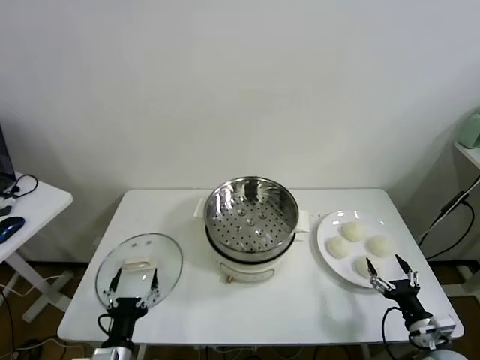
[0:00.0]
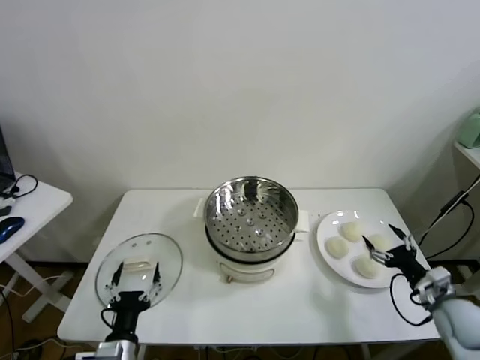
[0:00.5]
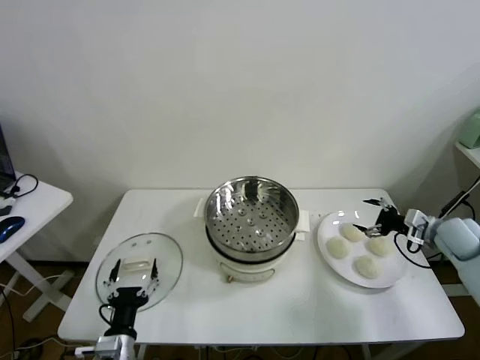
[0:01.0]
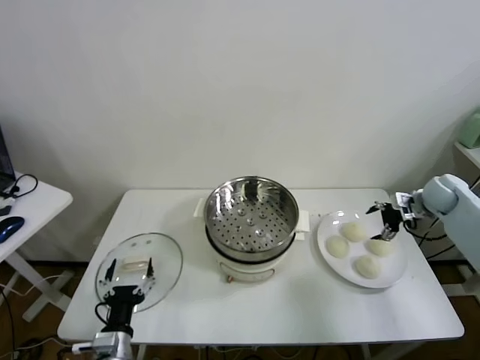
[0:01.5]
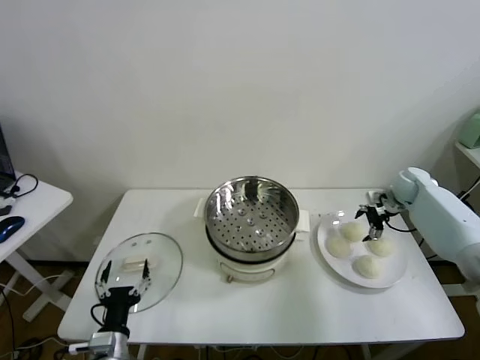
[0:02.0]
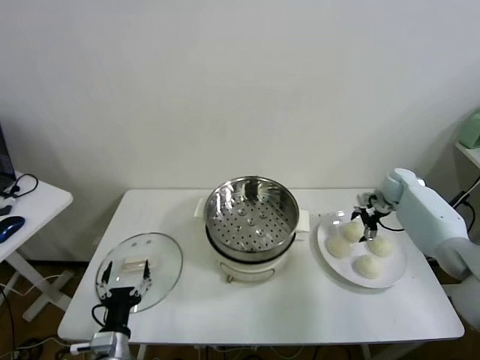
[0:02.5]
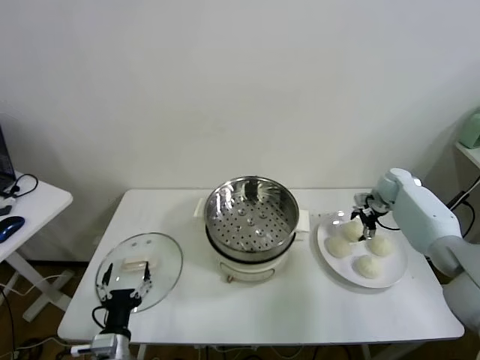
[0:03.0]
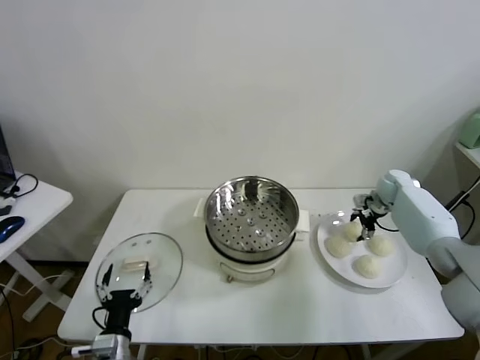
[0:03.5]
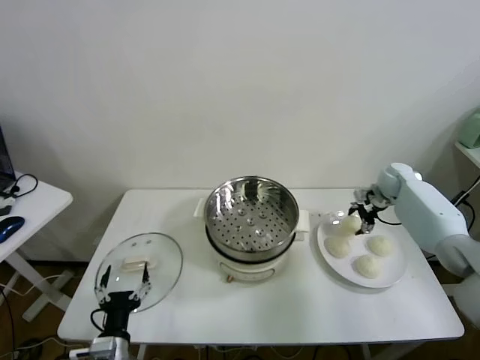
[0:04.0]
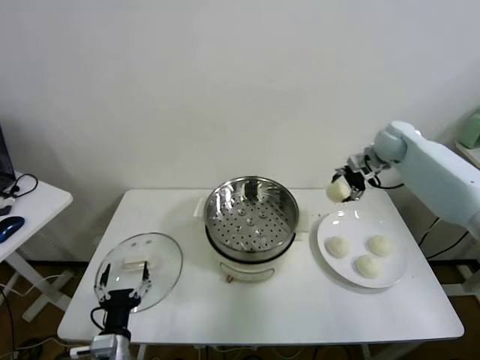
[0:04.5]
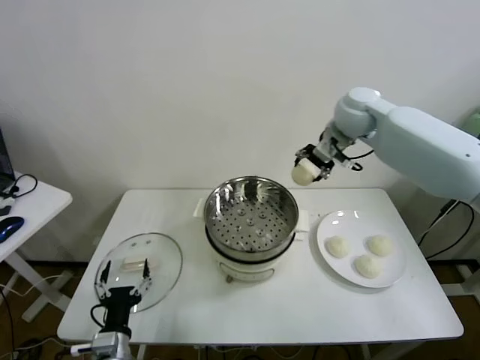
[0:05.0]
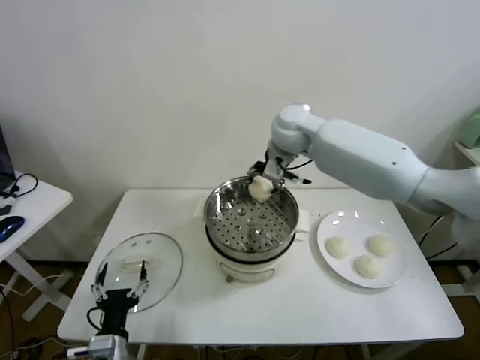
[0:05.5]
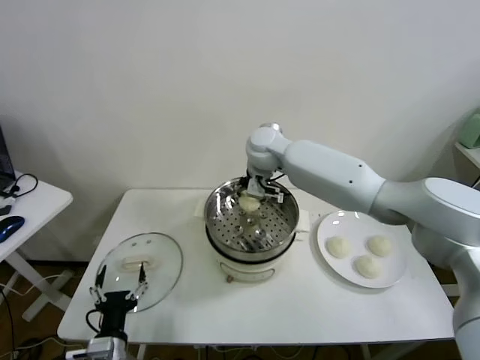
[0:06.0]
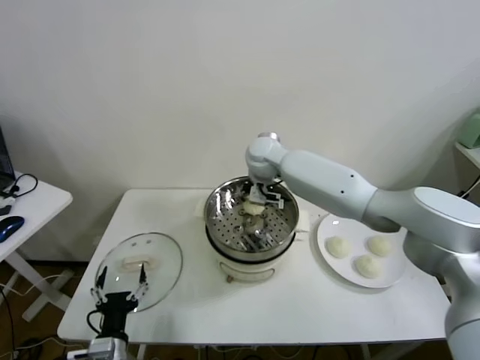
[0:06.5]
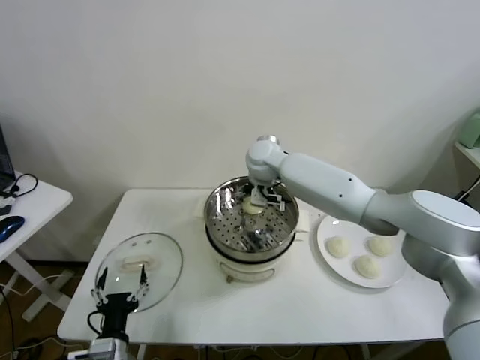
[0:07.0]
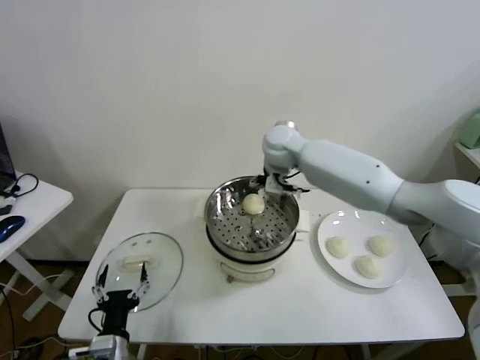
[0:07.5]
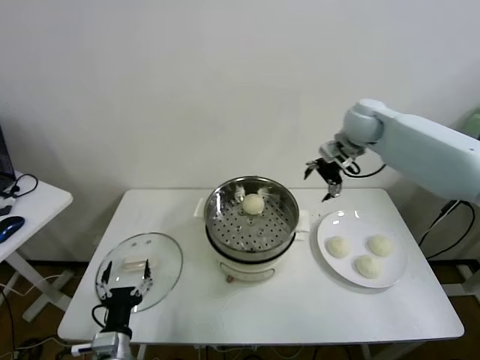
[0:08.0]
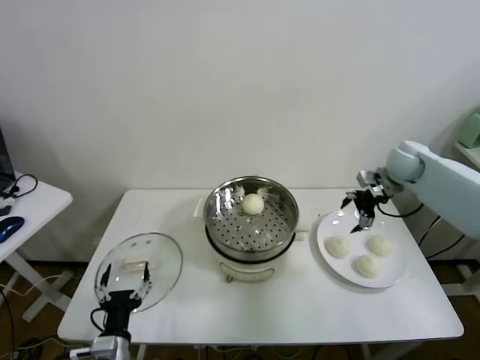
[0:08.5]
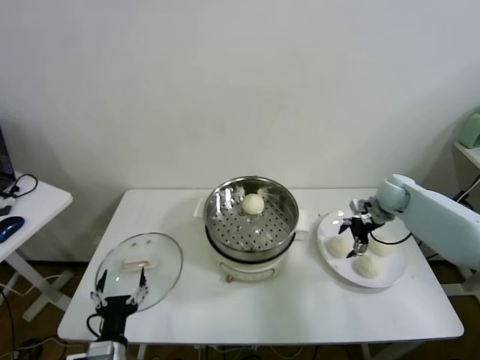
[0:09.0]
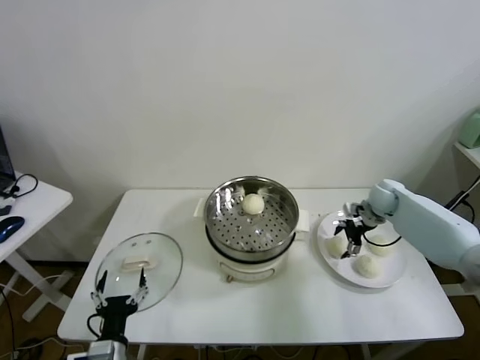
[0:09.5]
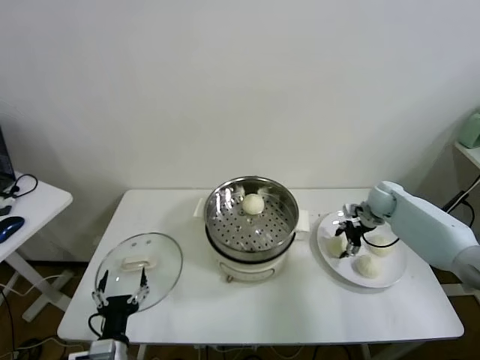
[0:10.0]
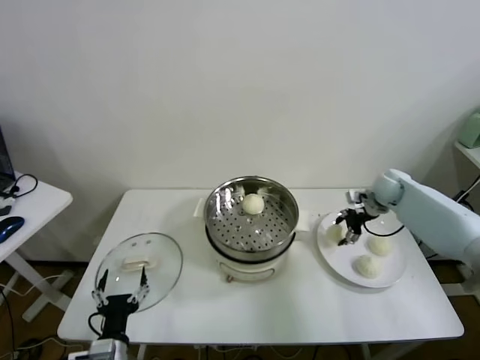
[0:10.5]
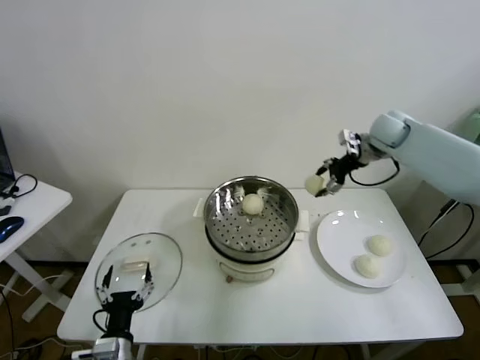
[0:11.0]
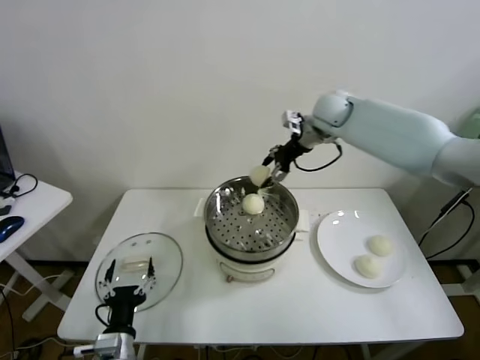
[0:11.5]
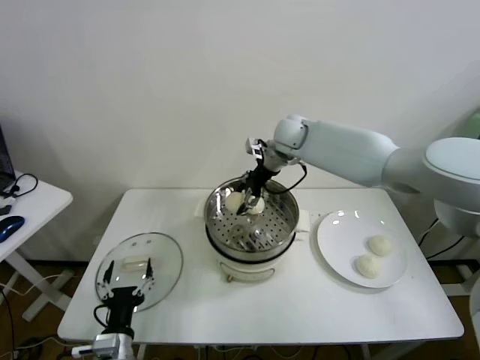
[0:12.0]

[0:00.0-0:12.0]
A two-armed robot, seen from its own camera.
Task of the whole recording: take steamed baozi put them in steamer.
Step, 0:00.0 to 0:03.0: Grasp the baozi in the plate with right gripper.
Step, 0:03.5 to 0:07.0: Place the baozi on the steamer with right gripper.
Step, 0:07.5 to 0:10.0: Grasp the baozi in the plate with right gripper.
0:02.0 to 0:04.0: The right gripper closes up.
0:04.0 to 0:06.0: The right gripper moves to the left, some 35 cm.
0:06.0 to 0:08.0: The right gripper shifts about 25 cm to the right, and opens up.
0:08.0 to 0:10.0: The right gripper shifts roughly 20 cm downward, and closes.
0:10.0 to 0:12.0: The right gripper is displaced to the left and upward by approximately 35 cm.

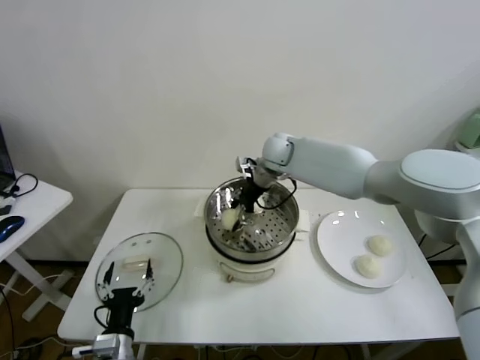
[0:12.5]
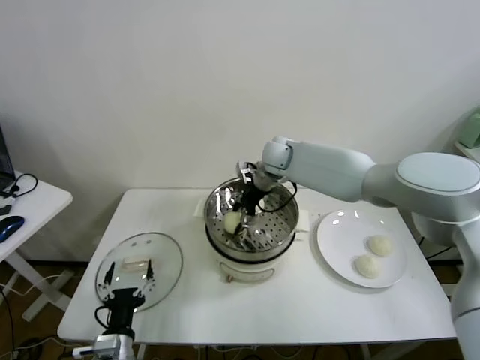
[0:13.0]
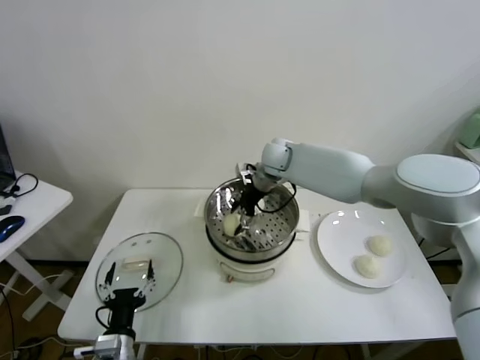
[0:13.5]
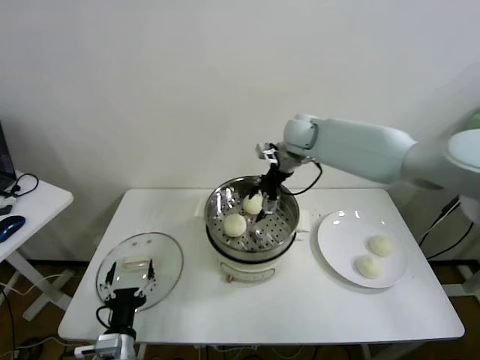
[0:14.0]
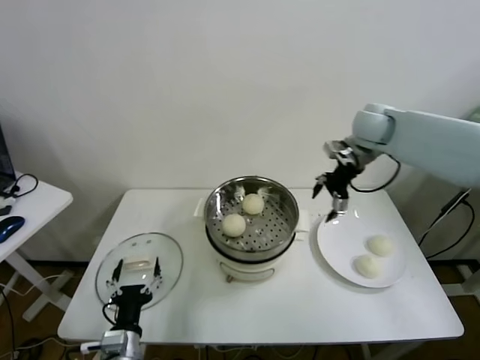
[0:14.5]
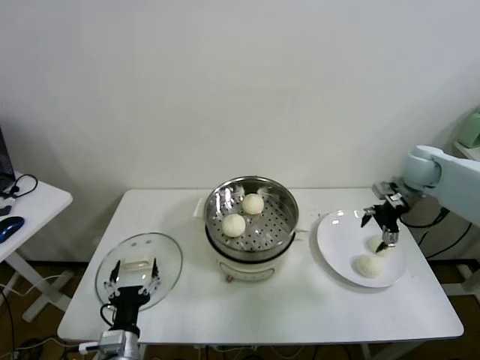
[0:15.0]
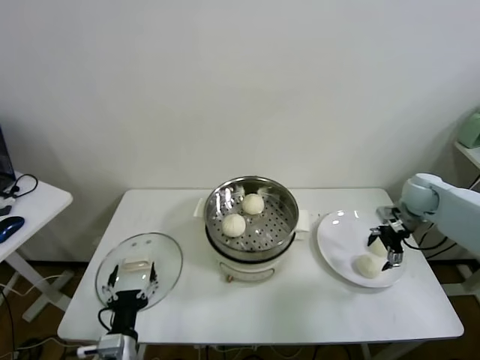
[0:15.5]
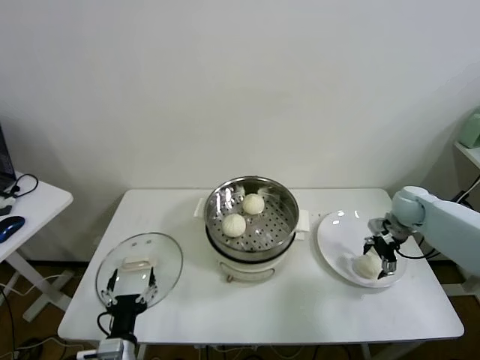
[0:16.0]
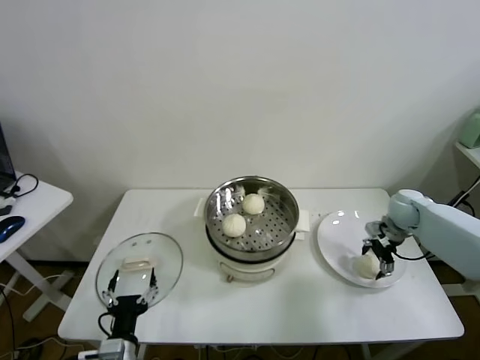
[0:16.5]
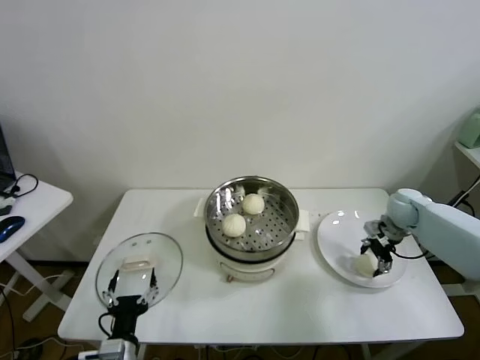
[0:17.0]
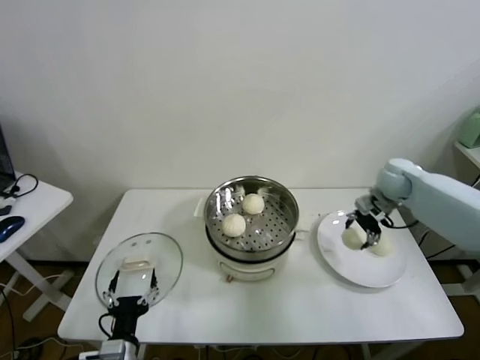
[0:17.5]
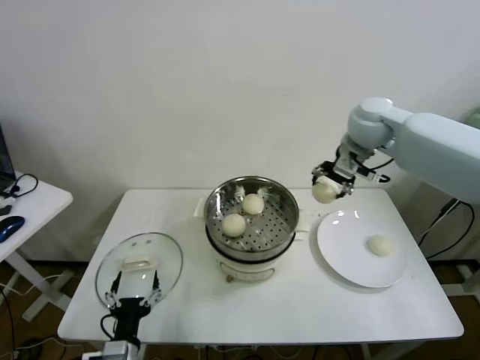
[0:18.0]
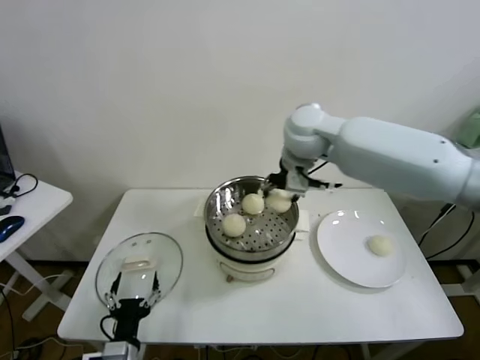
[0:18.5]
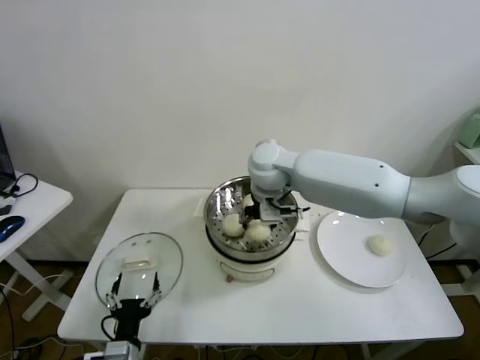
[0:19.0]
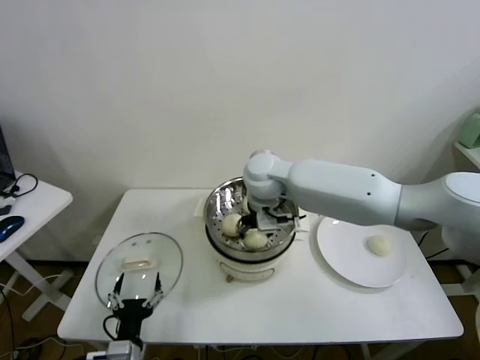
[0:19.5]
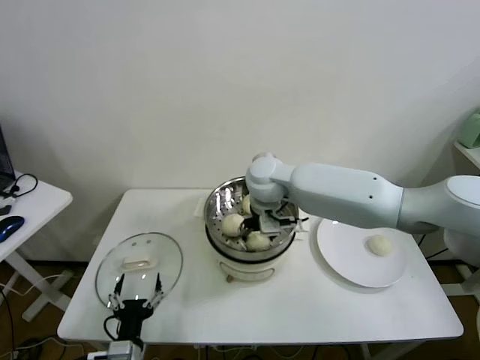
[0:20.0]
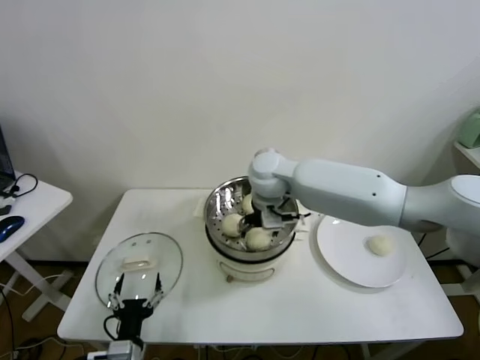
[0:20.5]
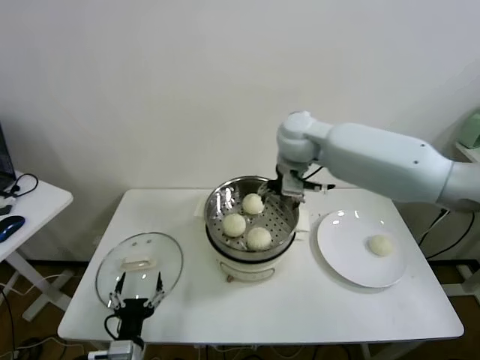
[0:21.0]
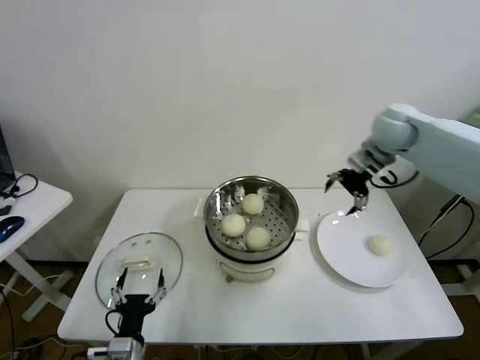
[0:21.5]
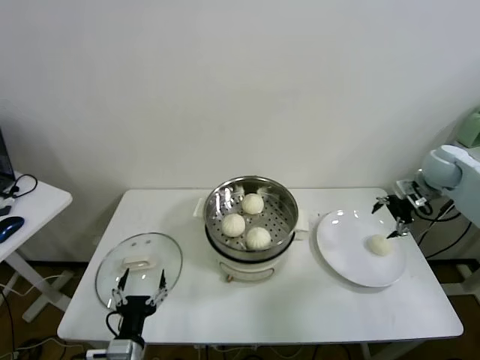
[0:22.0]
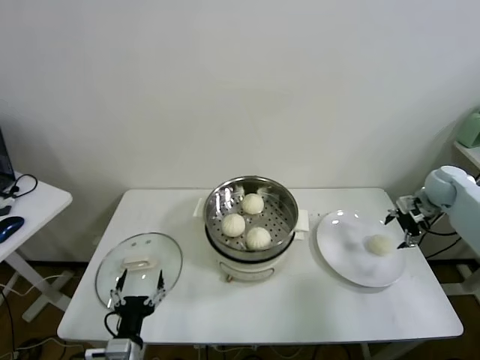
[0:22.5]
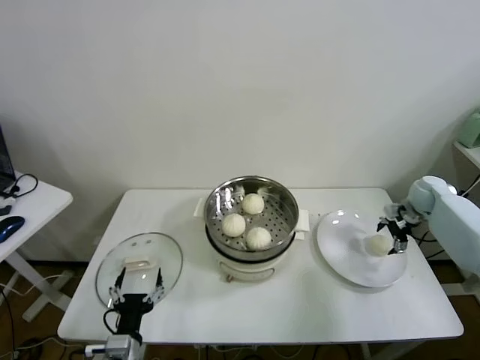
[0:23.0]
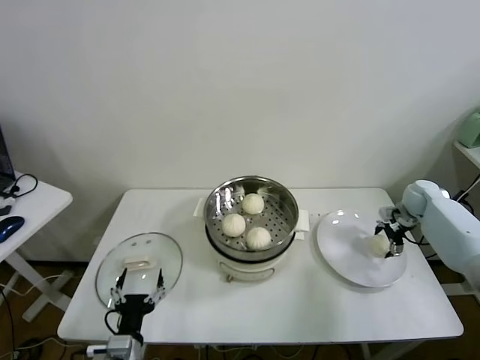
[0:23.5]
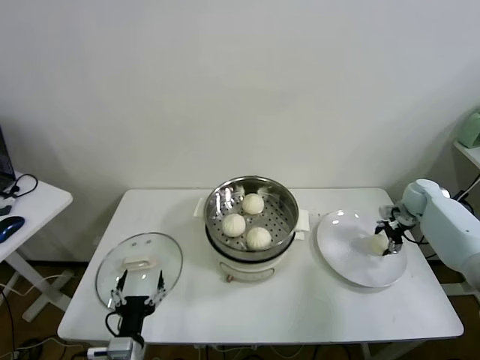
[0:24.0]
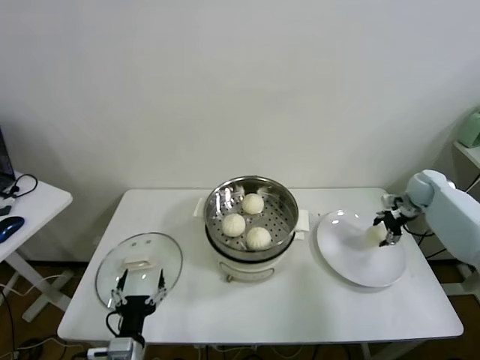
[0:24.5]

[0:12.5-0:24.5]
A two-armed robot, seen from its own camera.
Task of the whole recording: take steamed baozi put them in steamer.
Step, 0:14.0 to 0:16.5: Grasp the baozi in the plate with right gripper.
Step, 0:17.0 to 0:20.5: Place the baozi on the steamer with right gripper.
Step, 0:21.0 to 0:23.5: Grasp the baozi in the plate with right gripper.
0:12.5 to 0:14.5: The right gripper shifts approximately 25 cm to the right and upward, and opens.
0:14.5 to 0:16.5: The right gripper goes roughly 25 cm downward and to the right.
0:16.5 to 0:18.5: The right gripper is displaced to the left and upward by some 40 cm, and closes.
0:18.5 to 0:20.5: The right gripper goes about 10 cm downward and to the left, and opens up.
0:20.5 to 0:22.5: The right gripper moves to the right, roughly 50 cm.
0:22.5 to 0:24.5: The right gripper closes.

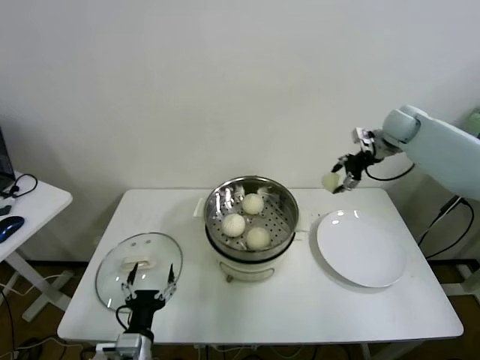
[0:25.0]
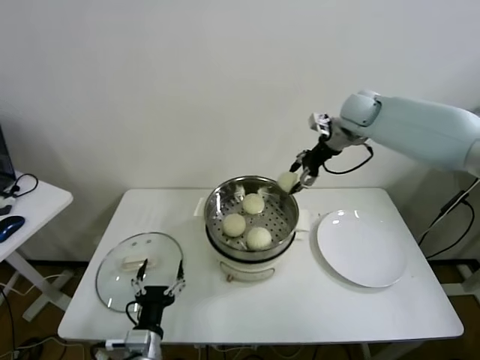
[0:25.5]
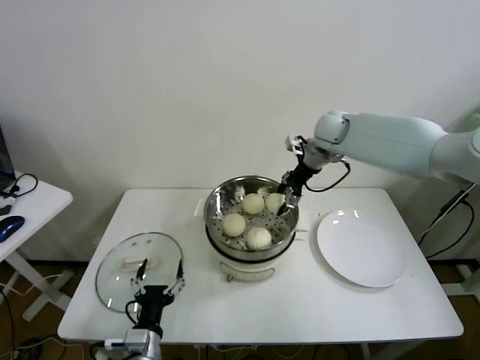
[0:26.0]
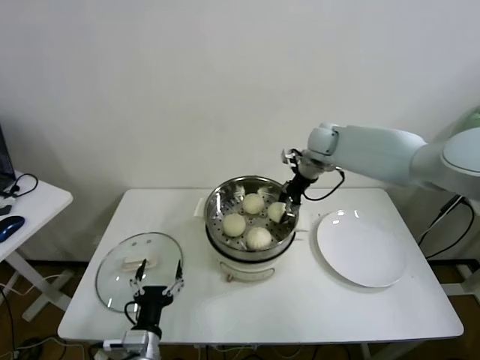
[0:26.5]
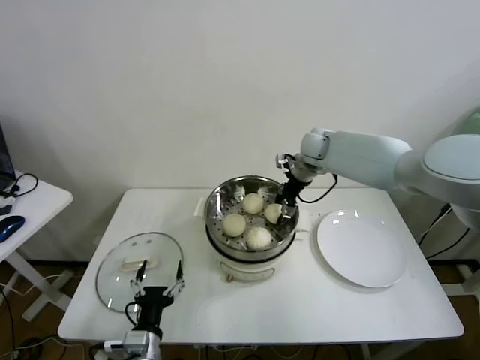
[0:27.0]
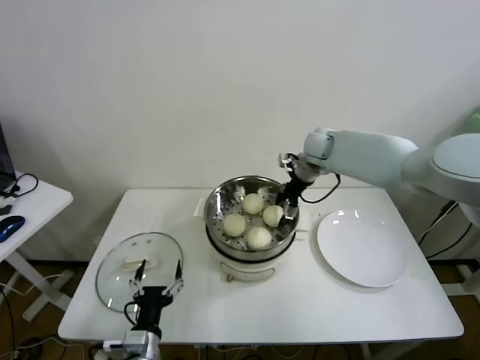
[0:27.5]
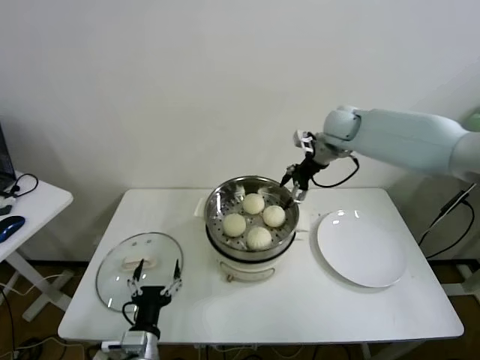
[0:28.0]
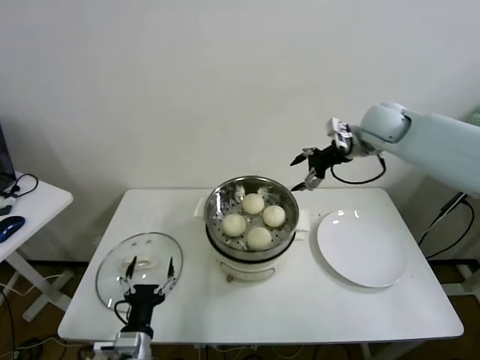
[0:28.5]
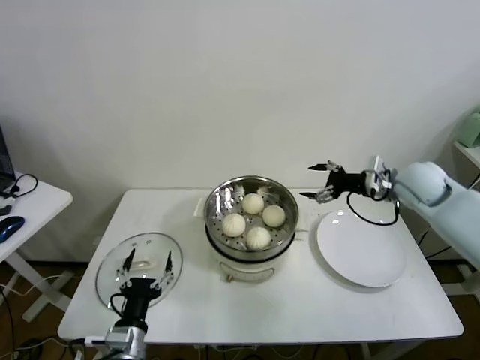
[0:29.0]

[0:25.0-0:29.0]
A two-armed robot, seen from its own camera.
Task of the whole recording: take steamed baozi put them in steamer.
Step, 0:25.0 to 0:27.5: Place the baozi on the steamer with right gripper.
0:25.0 to 0:27.0: The right gripper travels to the left by approximately 20 cm.
0:27.0 to 0:29.0: The right gripper heads to the right and backward, covering about 20 cm, and opens its fingers.
